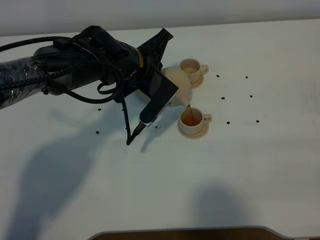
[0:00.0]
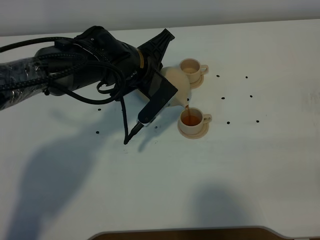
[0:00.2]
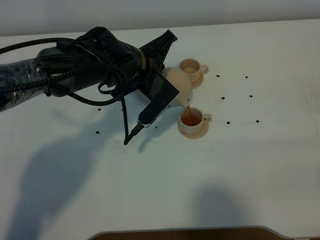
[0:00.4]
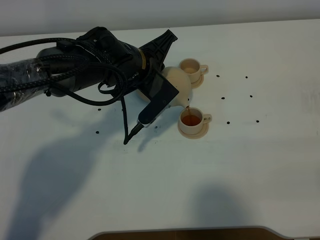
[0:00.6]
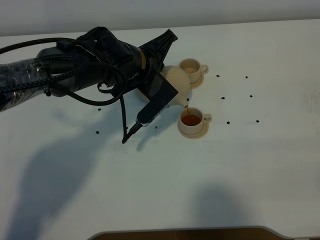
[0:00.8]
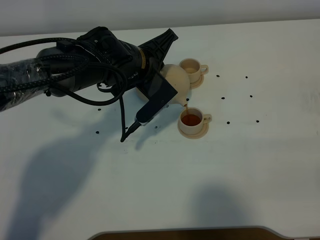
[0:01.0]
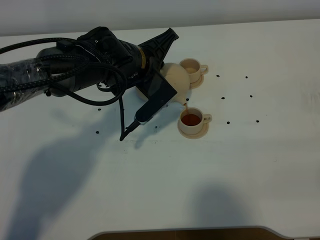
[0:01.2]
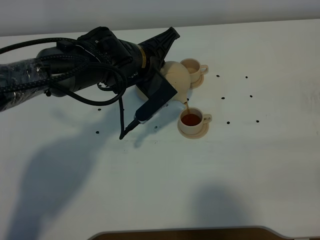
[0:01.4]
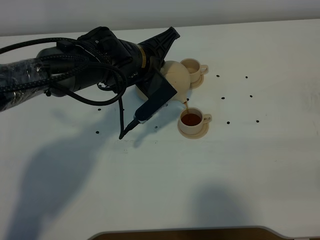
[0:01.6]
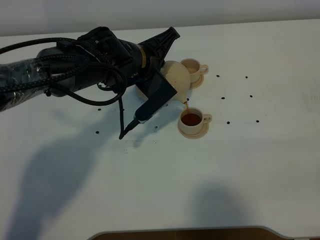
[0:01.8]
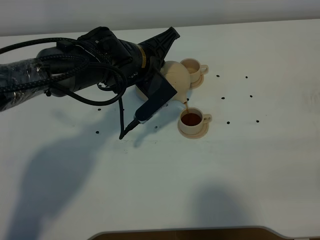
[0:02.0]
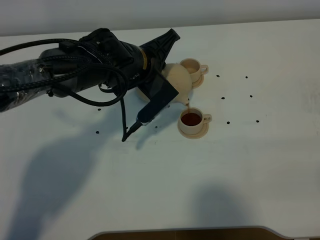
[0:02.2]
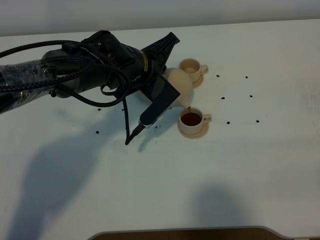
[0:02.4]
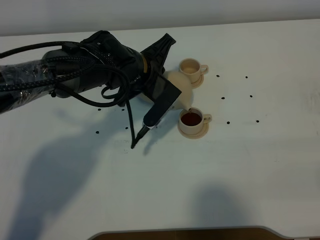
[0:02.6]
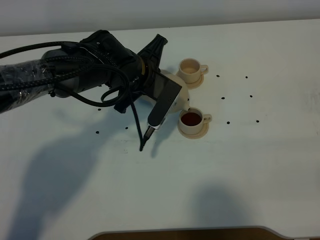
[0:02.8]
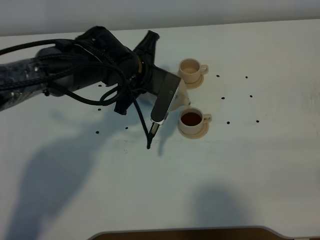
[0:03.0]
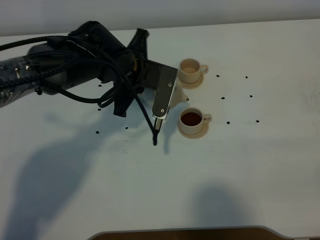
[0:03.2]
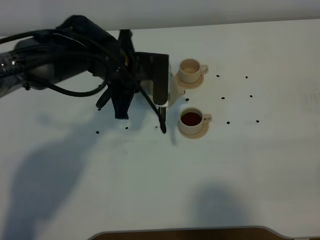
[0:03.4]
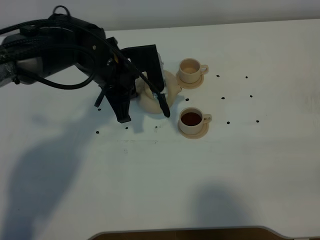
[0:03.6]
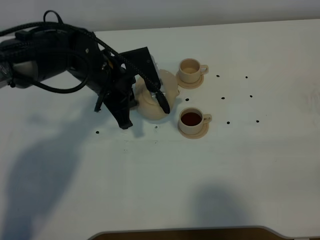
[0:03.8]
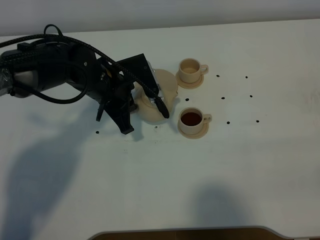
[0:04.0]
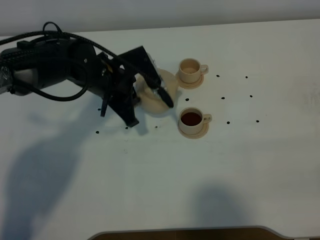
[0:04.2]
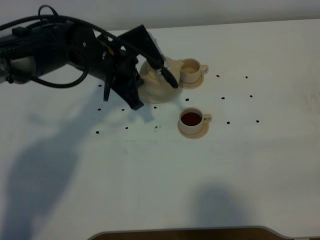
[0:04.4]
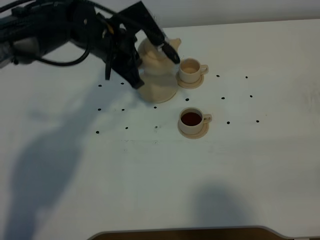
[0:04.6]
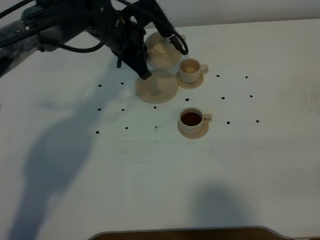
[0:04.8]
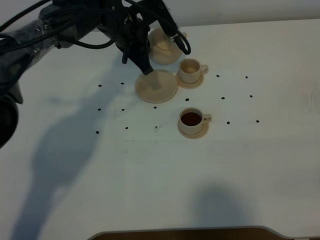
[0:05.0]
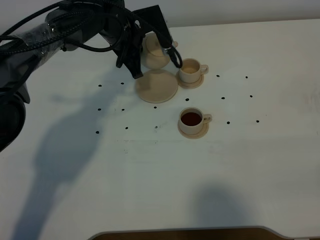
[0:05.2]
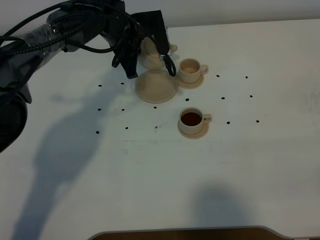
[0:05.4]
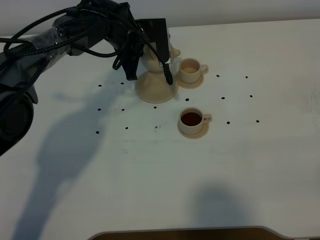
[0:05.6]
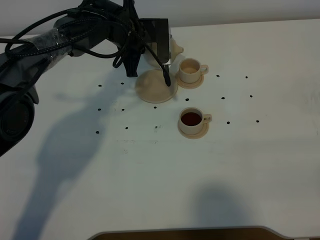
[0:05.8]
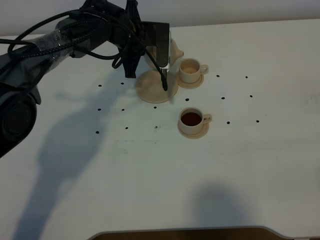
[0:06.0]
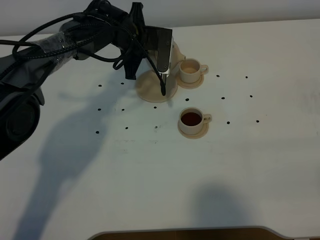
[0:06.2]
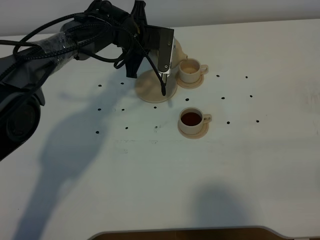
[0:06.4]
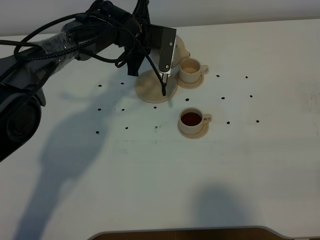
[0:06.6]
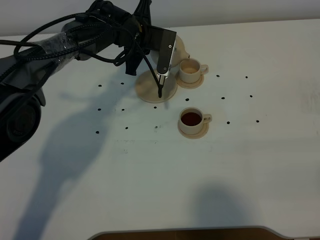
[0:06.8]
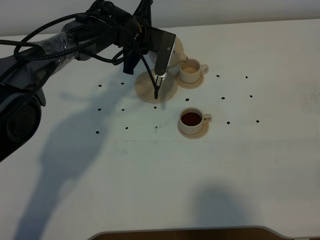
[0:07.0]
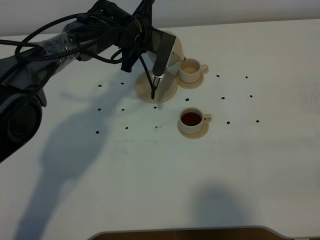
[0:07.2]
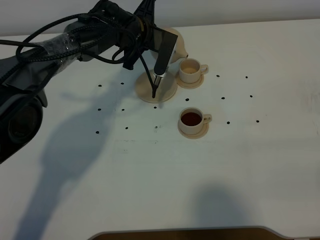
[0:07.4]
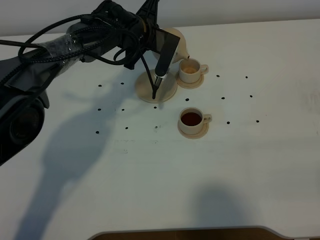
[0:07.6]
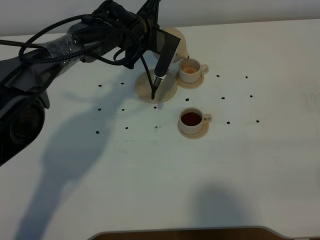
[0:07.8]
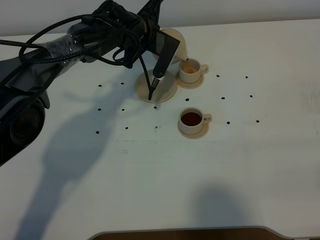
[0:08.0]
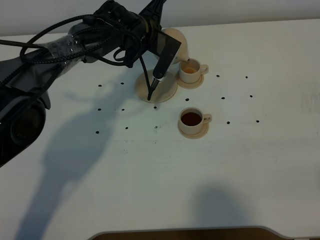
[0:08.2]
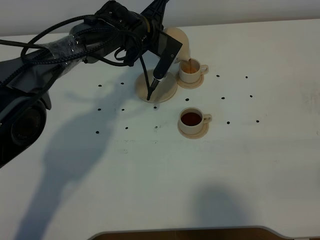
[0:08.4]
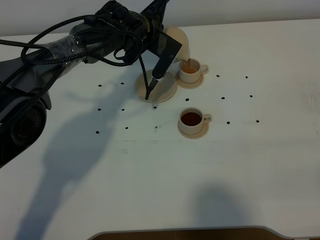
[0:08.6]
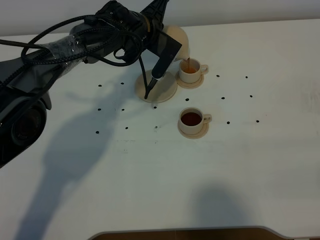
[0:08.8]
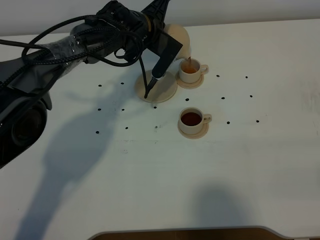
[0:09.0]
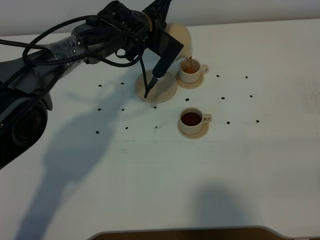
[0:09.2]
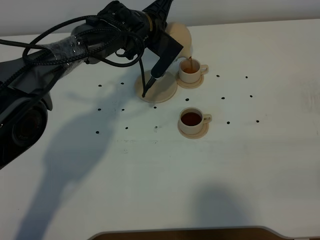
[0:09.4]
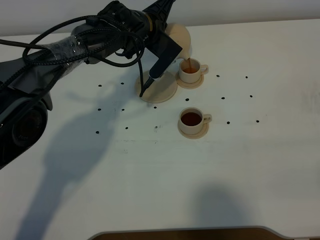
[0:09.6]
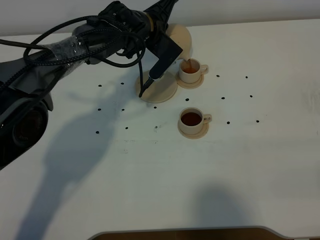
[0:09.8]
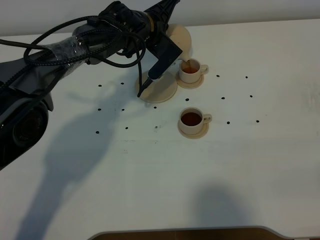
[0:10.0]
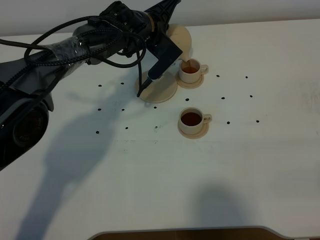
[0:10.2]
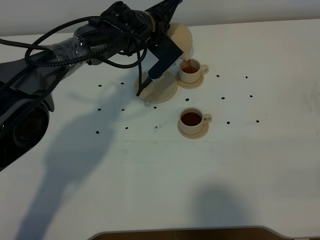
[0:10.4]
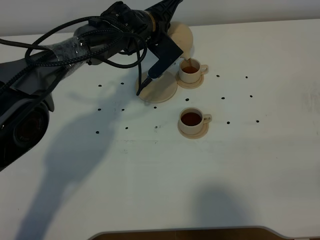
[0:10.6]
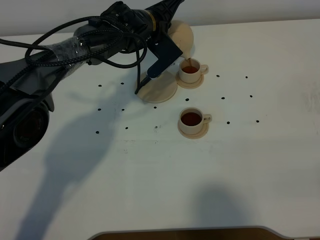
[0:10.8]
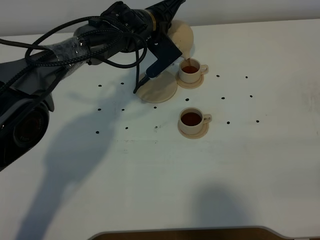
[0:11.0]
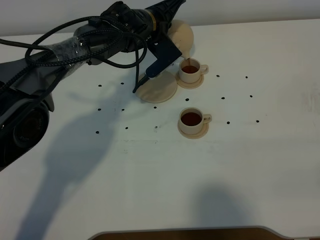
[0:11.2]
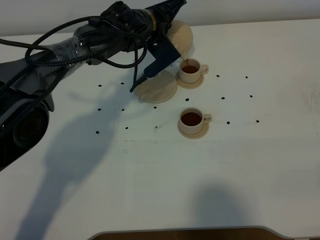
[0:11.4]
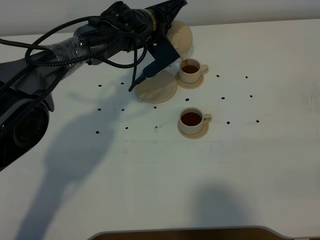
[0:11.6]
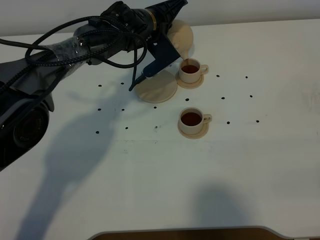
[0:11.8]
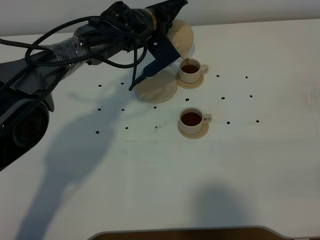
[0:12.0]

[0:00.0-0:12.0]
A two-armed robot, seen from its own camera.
Task of the whole recording: grasp the brown teapot and pour the tea into the two brown teacups one by one, put the brown teapot back in its original place.
Step, 0:00.0 to 0:03.0: Pour tea into the teacup with the left gripper.
0:00.0 to 0:01.6: The grippers stay close to where they were, moving slightly.
0:03.0 to 0:04.4: The left gripper moves approximately 5 cm.
0:04.4 to 0:06.0: The left gripper moves forward, about 10 cm.
0:07.6 to 0:09.0: The grippers make only small movements.
0:09.0 to 0:10.4: There are only small adjustments of the grippers.
0:10.4 to 0:12.0: There are only small adjustments of the grippers.

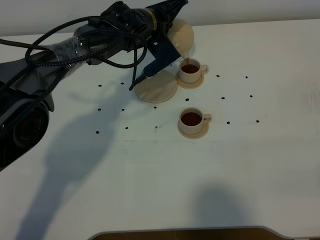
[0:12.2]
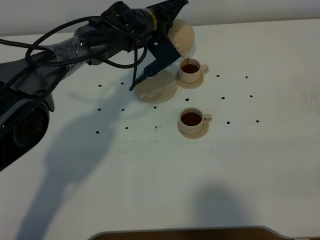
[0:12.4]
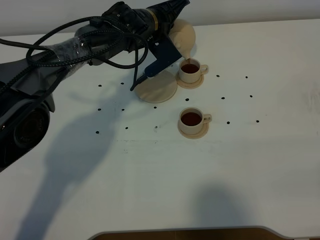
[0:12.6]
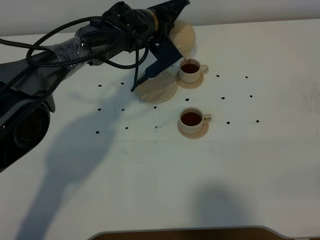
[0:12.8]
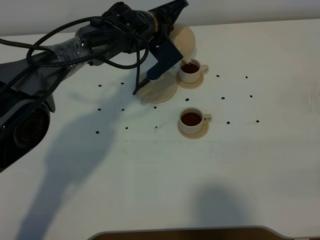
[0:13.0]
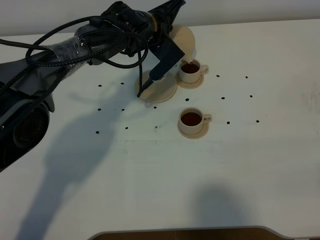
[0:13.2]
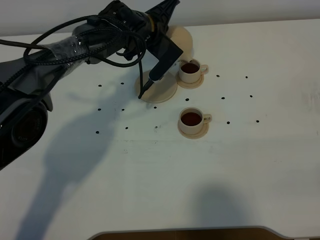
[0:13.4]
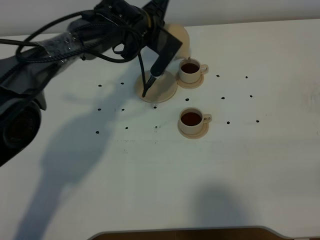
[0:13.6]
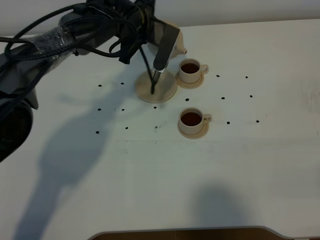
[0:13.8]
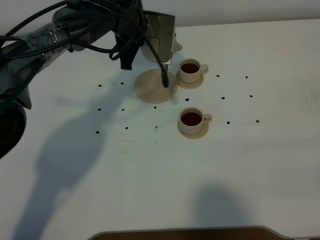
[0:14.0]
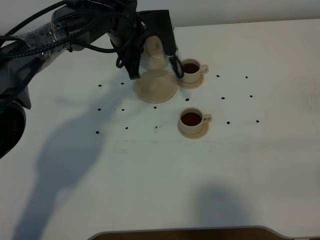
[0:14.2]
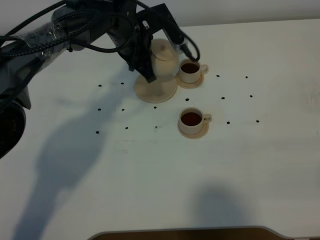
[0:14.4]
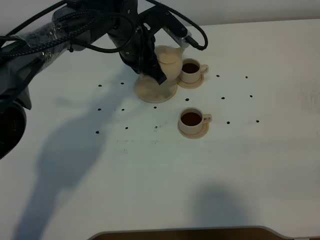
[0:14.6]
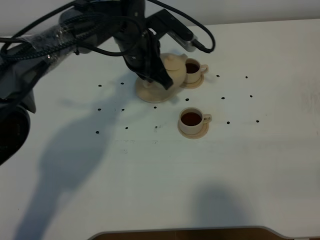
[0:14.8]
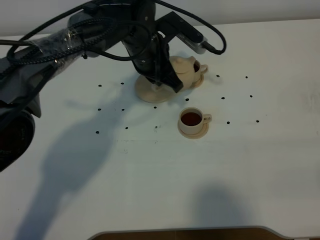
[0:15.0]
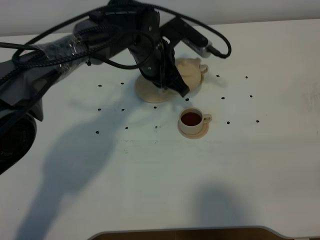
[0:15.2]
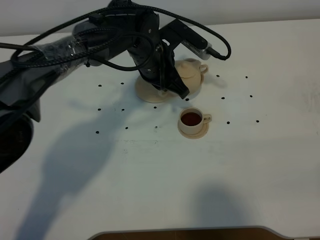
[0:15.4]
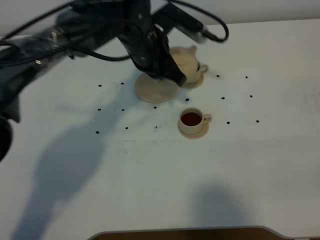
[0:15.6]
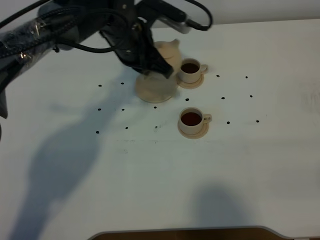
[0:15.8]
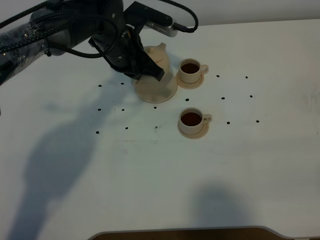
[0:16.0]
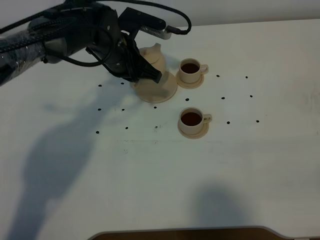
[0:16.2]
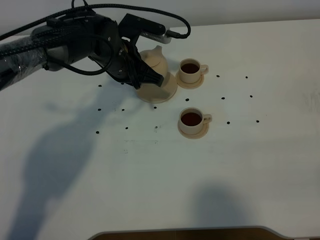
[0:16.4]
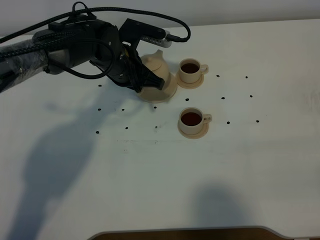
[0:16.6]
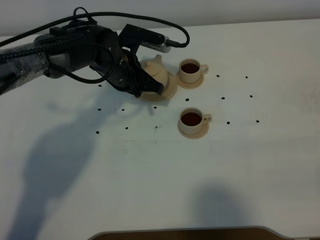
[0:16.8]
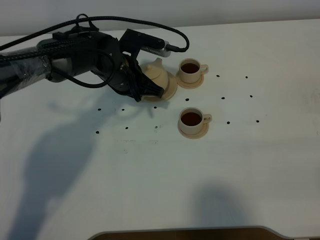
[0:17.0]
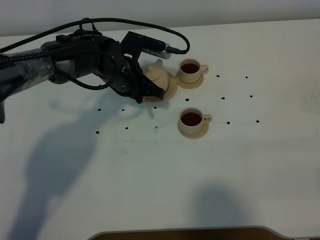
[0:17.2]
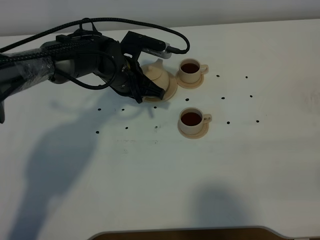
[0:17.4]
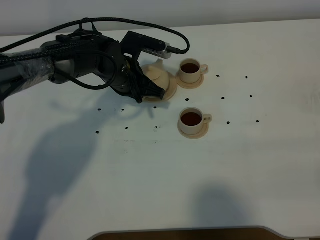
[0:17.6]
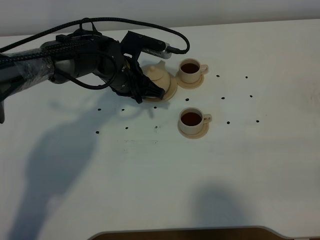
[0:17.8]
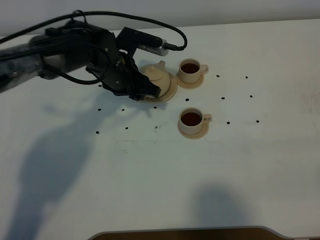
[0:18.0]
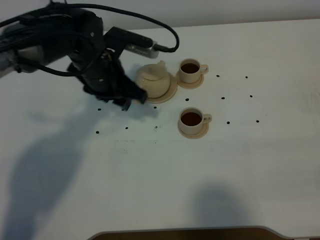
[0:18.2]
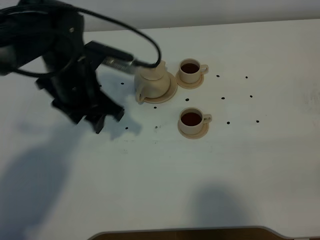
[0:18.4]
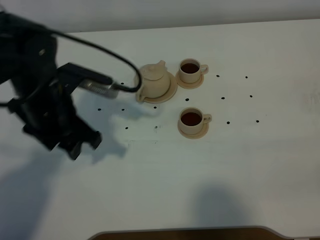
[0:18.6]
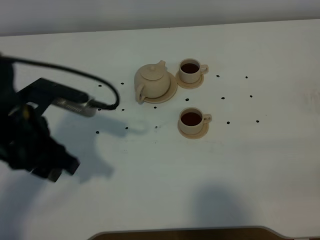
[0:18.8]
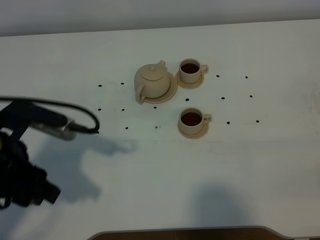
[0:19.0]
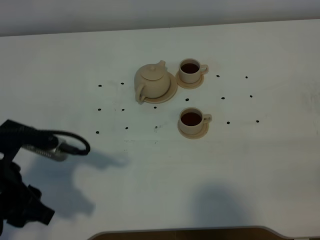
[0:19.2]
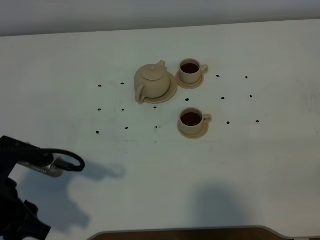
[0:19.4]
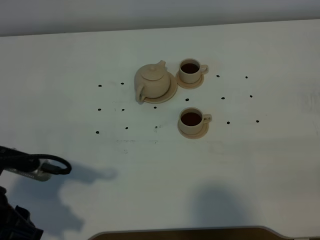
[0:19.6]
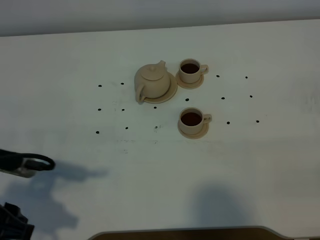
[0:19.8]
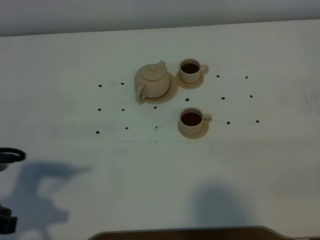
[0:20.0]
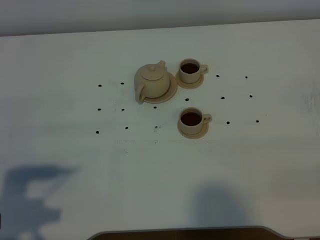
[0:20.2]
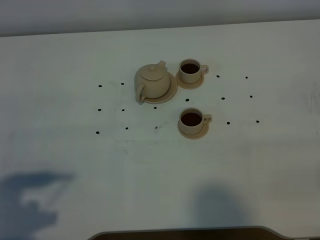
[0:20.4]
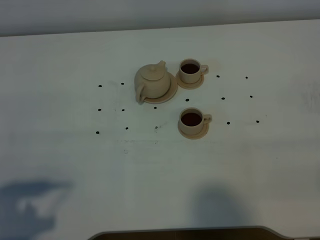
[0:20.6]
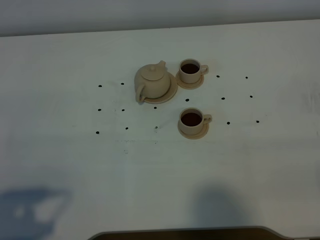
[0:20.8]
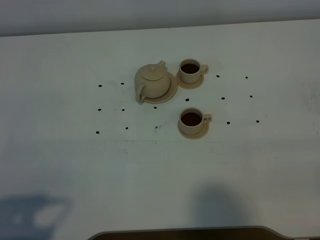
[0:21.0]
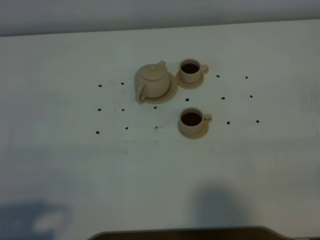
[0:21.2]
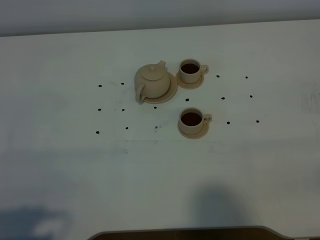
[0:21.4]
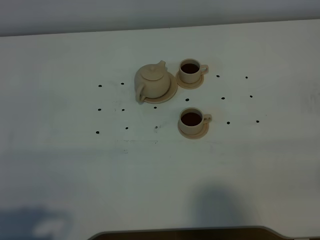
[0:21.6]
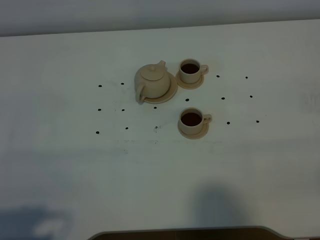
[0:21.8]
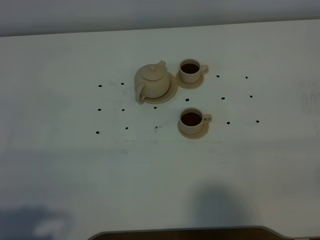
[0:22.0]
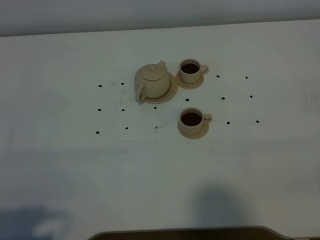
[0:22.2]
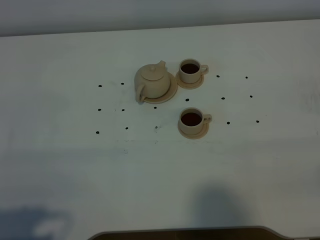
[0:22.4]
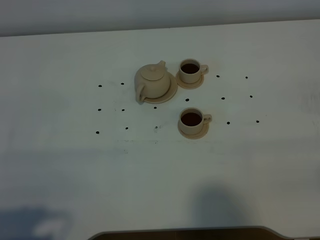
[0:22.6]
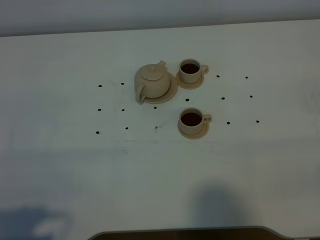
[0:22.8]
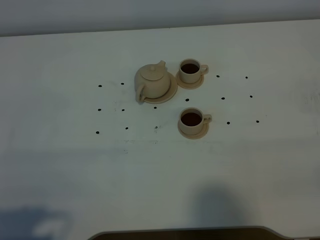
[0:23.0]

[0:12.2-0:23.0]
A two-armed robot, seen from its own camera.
Task of the whole recording: grasp the brown teapot and pour the tea into the two brown teacups one by one, put the brown teapot back in its original place.
0:13.8 to 0:15.2: The left gripper moves backward, some 5 cm.
0:15.2 to 0:16.8: The left gripper shifts roughly 5 cm to the left.
0:16.8 to 0:18.4: The left gripper is displaced backward, upward and to the left by some 10 cm, and opens its fingers.
0:18.4 to 0:20.0: The left gripper heads backward and to the left, covering approximately 25 cm.
0:20.0 to 0:21.4: The left gripper is displaced backward by about 10 cm.
0:21.4 to 0:23.0: The two grippers keep their place.
